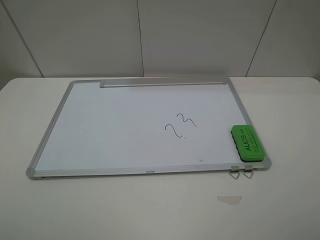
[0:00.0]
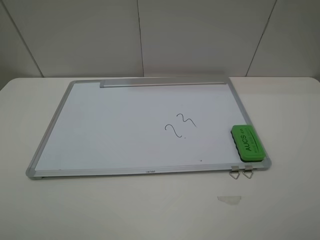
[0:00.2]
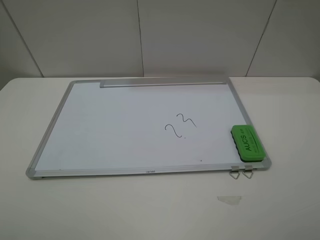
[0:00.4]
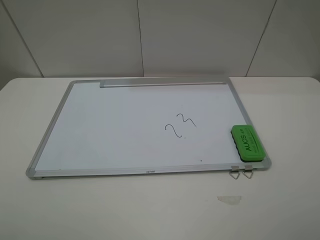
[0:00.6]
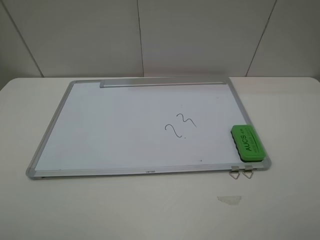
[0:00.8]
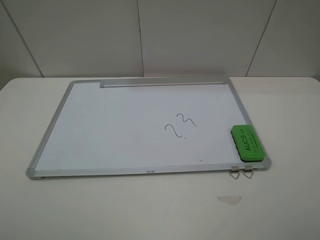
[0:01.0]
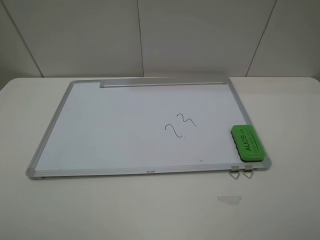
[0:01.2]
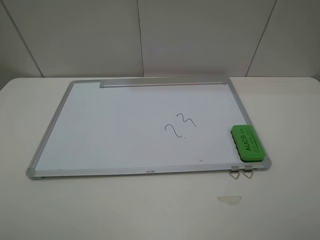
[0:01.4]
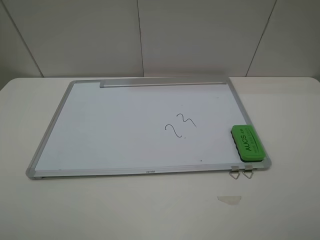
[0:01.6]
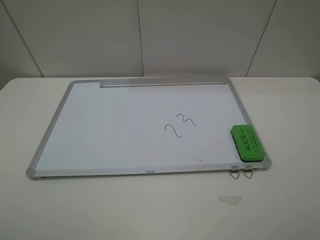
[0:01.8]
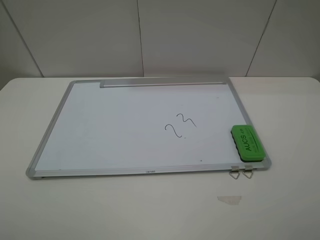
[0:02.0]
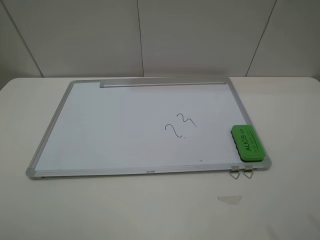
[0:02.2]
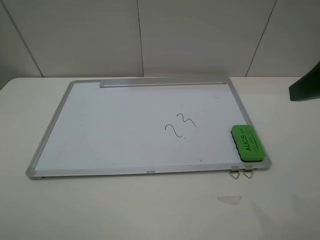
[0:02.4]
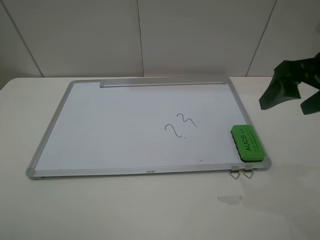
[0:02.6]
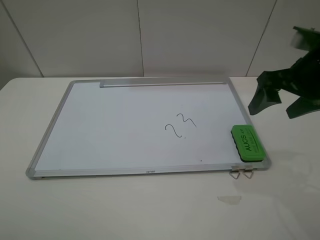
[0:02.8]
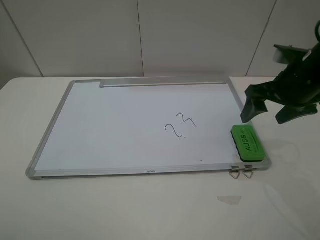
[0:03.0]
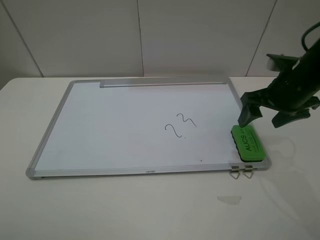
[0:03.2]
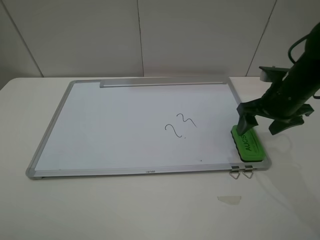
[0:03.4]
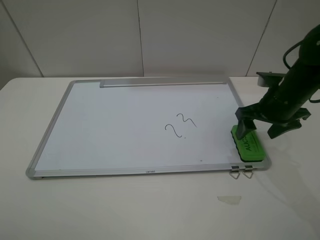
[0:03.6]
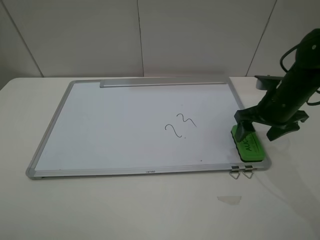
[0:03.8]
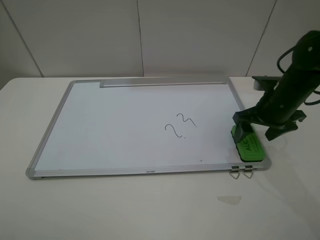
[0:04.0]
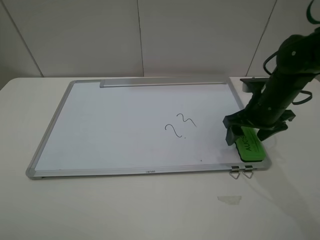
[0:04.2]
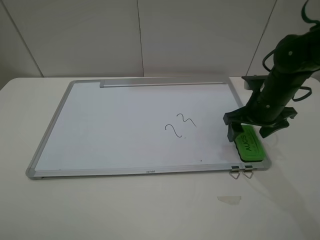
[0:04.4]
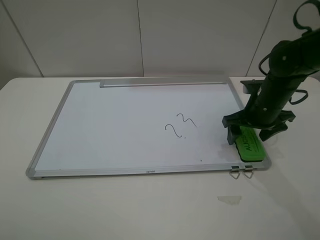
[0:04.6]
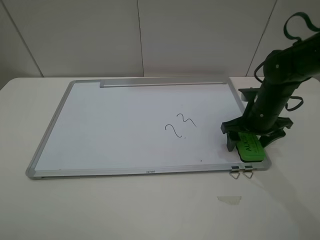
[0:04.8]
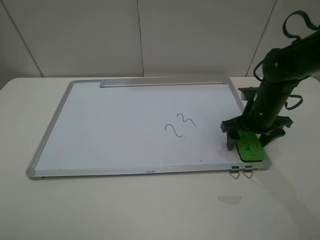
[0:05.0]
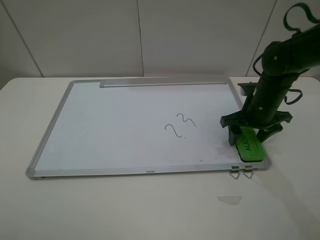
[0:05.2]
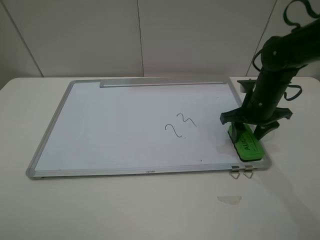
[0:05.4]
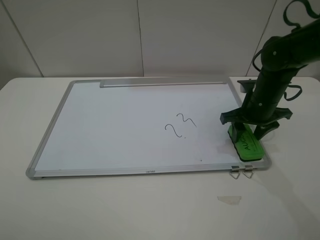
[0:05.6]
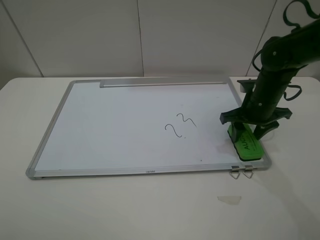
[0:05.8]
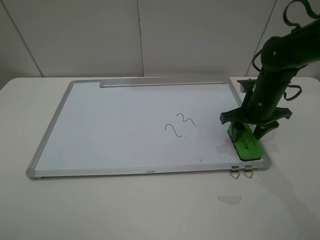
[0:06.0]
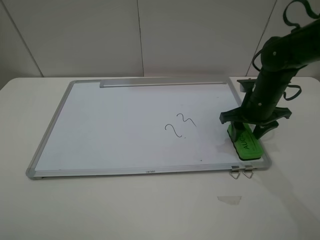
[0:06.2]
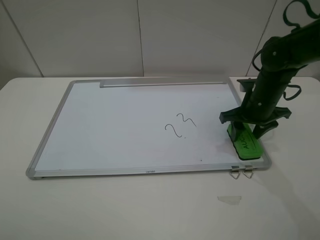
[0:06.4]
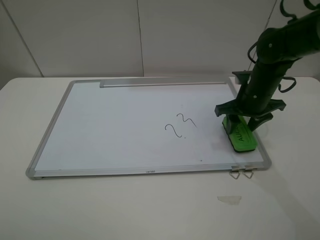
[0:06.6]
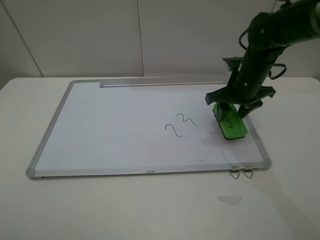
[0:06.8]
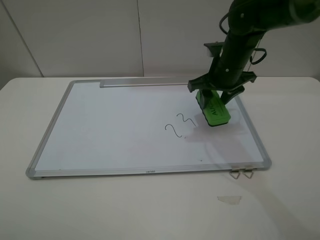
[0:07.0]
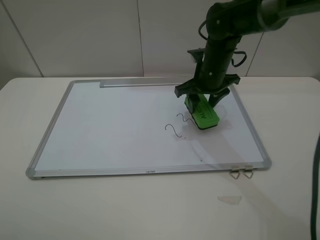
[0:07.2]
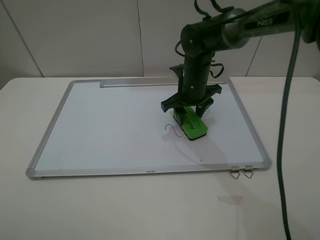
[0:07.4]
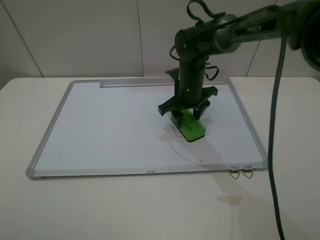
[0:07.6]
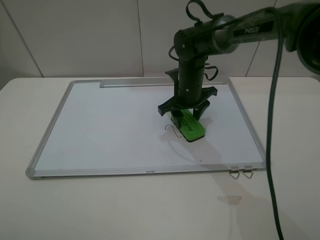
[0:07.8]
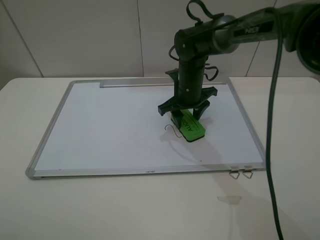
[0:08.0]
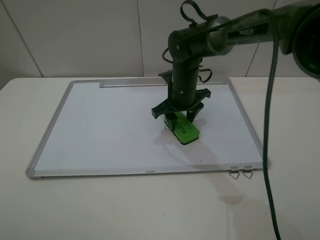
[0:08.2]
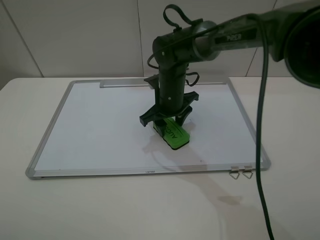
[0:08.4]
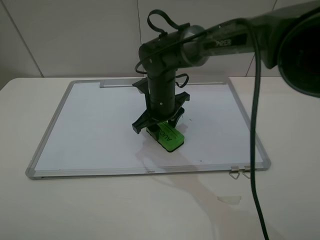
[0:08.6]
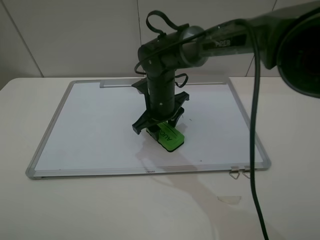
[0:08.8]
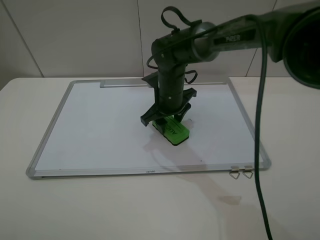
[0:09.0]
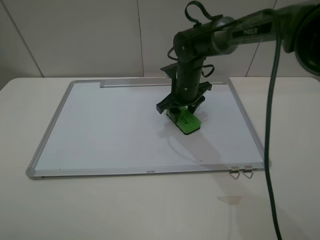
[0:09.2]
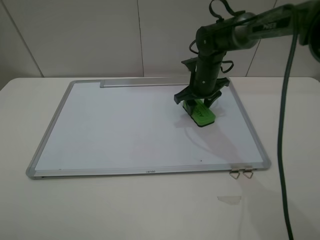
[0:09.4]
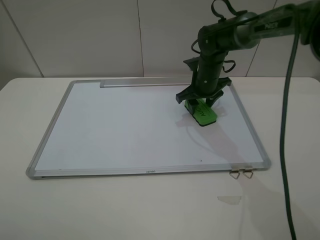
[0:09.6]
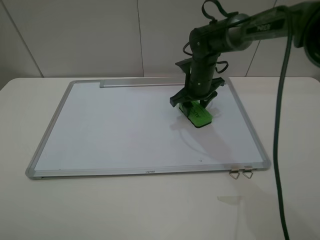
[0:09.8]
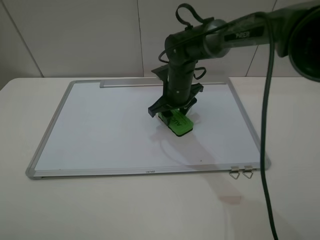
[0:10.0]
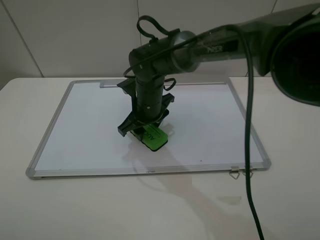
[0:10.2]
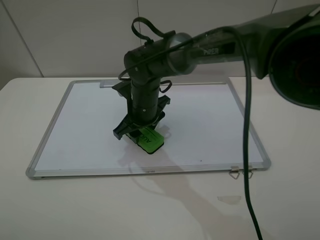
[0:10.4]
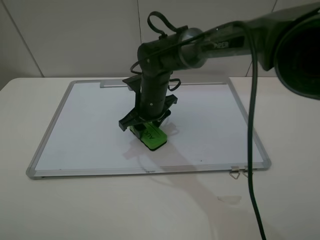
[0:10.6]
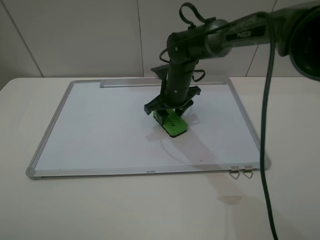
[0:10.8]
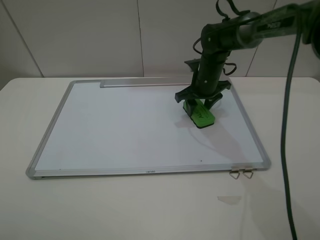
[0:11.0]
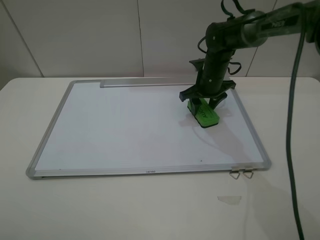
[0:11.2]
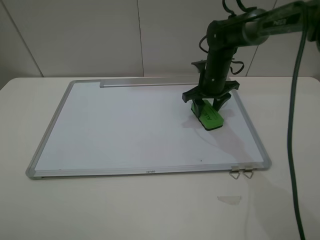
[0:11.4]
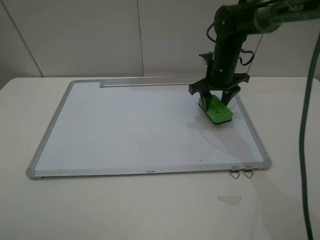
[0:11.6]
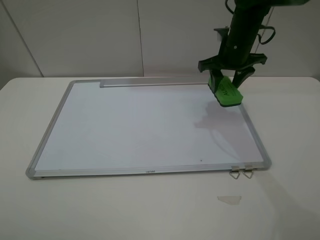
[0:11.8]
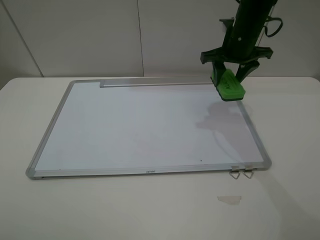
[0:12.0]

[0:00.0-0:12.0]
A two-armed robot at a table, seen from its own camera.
Step, 0:00.0 to 0:05.2: Grasp the eraser with the right gripper.
Step, 0:05.4 to 0:11.2: Grasp the eraser and wipe the blackboard with the right gripper.
0:00.0 to 0:01.6: Neither gripper changes place.
0:01.6 to 0:03.0: The right gripper is displaced forward by roughly 30 cm.
0:03.0 to 0:04.4: The right gripper moves downward, approximately 10 cm.
0:04.4 to 0:06.0: The right gripper closes.
0:06.0 to 0:07.6: The right gripper moves to the left and forward, approximately 15 cm.
0:09.0 to 0:10.4: The right gripper travels to the left by about 5 cm.
0:10.4 to 0:12.0: The right gripper travels to the right and upward by about 25 cm.

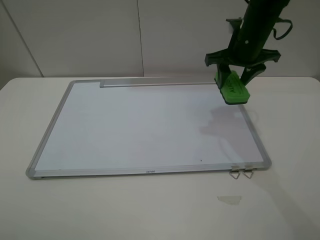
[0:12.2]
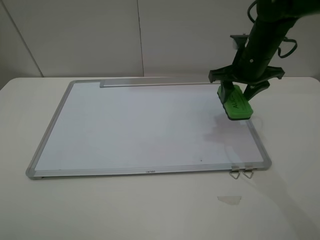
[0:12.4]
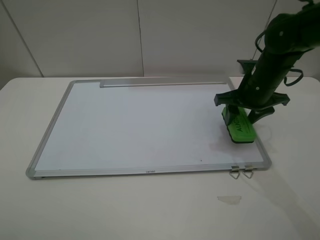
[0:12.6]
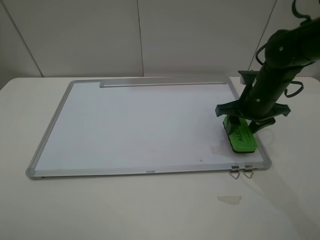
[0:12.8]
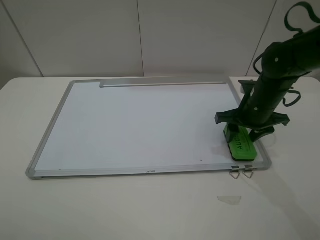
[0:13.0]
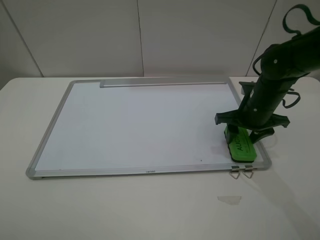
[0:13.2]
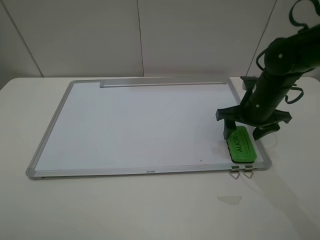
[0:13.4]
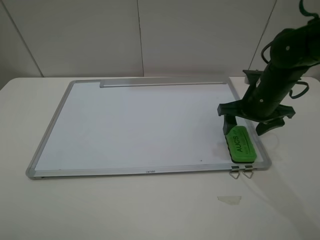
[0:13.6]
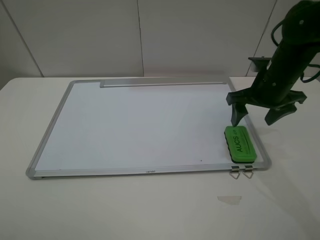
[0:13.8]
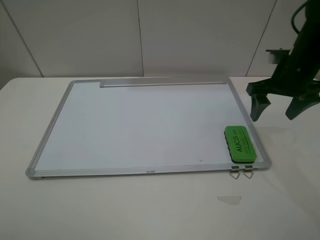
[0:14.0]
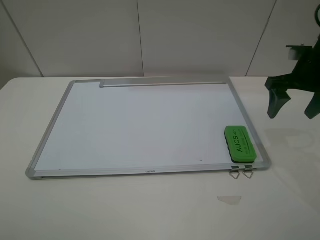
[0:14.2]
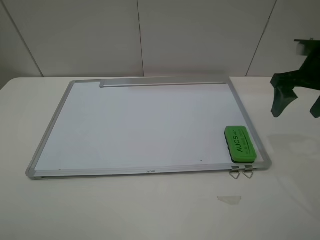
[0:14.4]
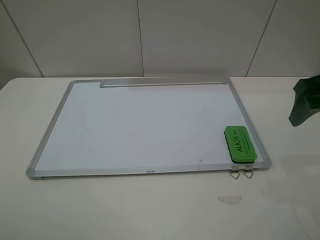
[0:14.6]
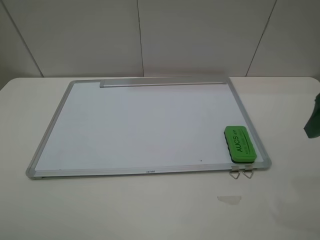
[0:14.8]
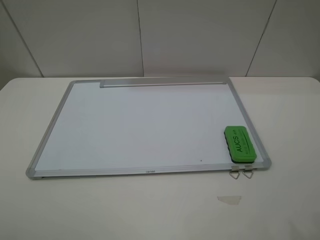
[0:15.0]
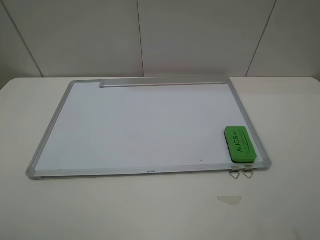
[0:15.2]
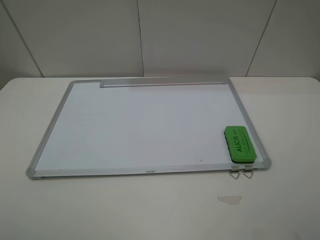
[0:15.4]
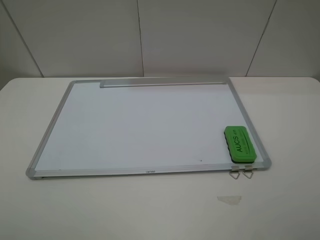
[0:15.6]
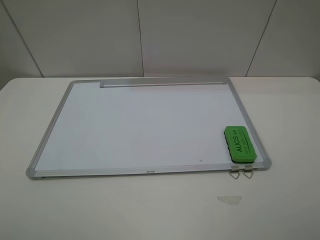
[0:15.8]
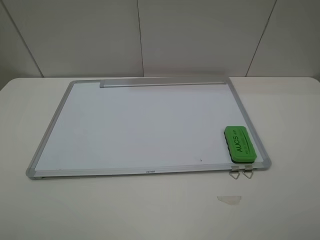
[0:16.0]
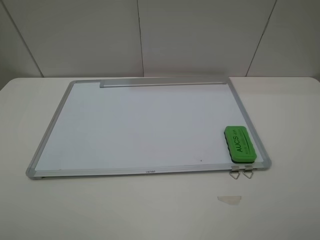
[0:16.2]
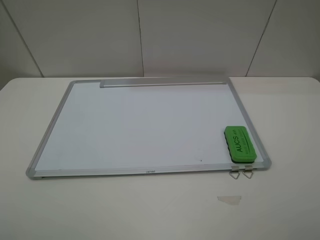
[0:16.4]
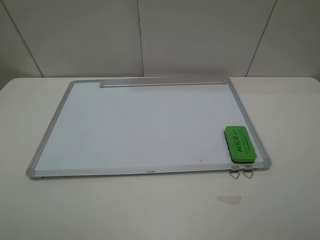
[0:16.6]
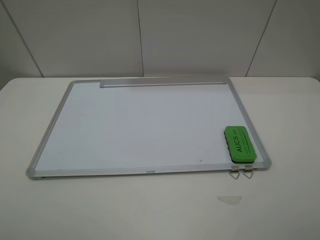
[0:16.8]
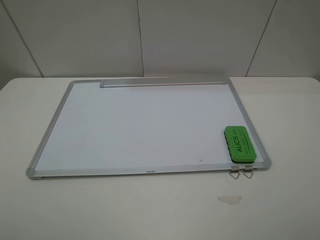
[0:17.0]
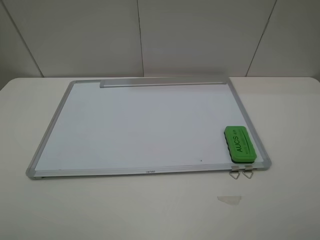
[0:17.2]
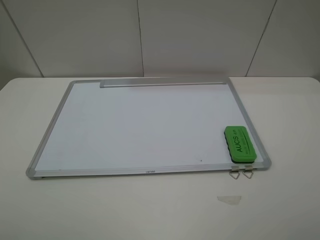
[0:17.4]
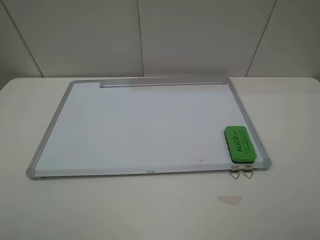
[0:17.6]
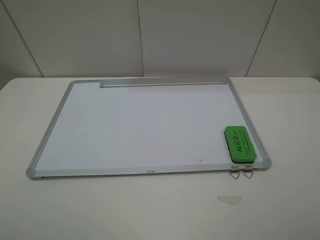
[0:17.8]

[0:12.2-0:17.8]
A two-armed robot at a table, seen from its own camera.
Step, 0:12.2 to 0:13.4: Place the eraser with the right gripper.
0:12.2 to 0:13.6: The right gripper goes some 10 cm backward and downward, and opens its fingers.
0:13.6 to 0:15.0: The right gripper travels backward and upward by roughly 25 cm.
0:16.4 to 0:17.8: Neither gripper changes place.

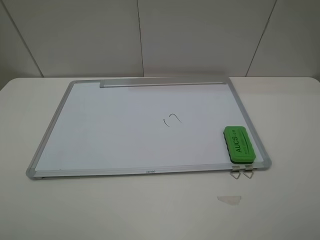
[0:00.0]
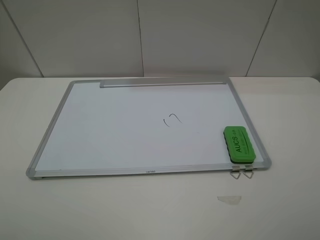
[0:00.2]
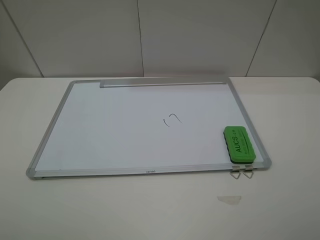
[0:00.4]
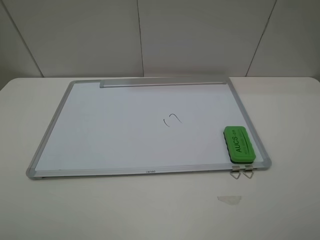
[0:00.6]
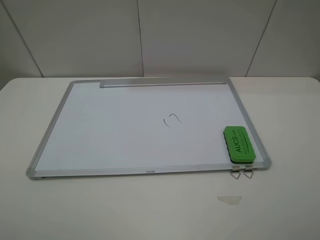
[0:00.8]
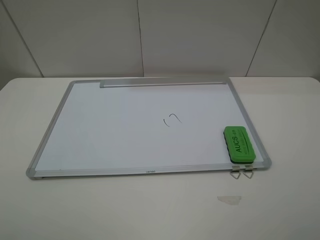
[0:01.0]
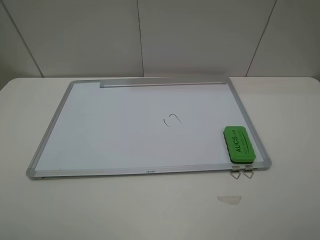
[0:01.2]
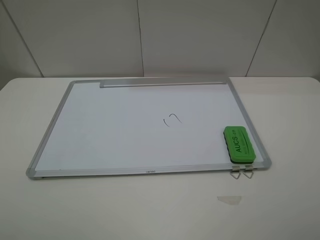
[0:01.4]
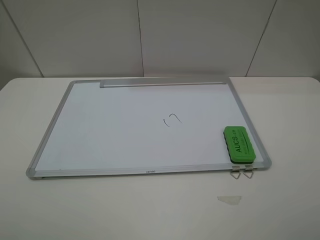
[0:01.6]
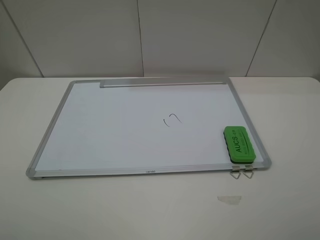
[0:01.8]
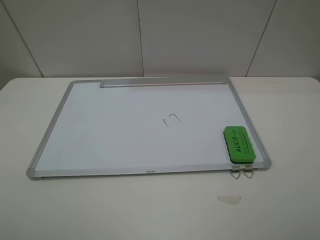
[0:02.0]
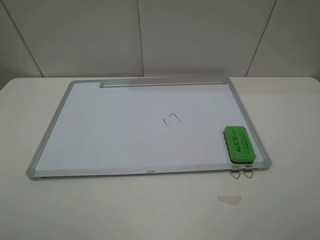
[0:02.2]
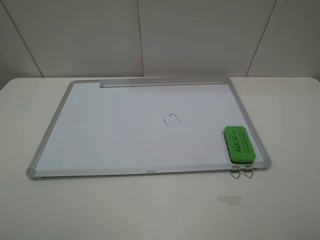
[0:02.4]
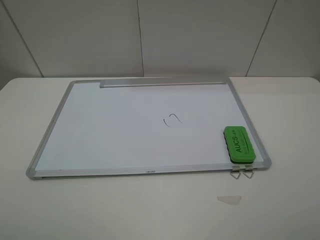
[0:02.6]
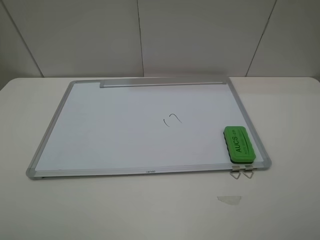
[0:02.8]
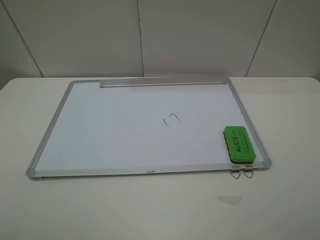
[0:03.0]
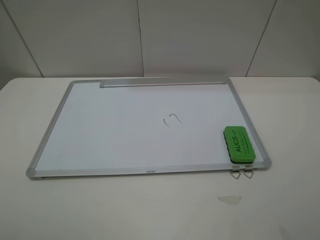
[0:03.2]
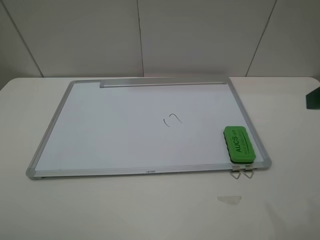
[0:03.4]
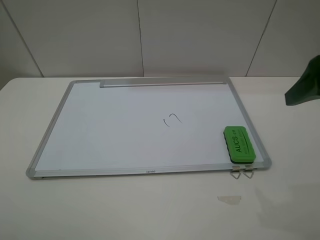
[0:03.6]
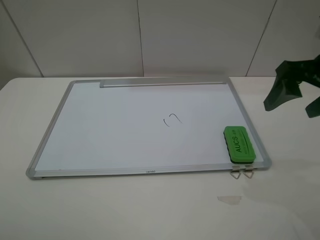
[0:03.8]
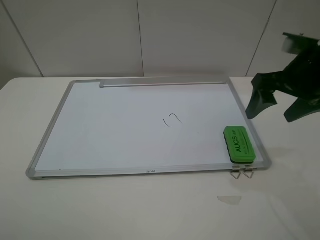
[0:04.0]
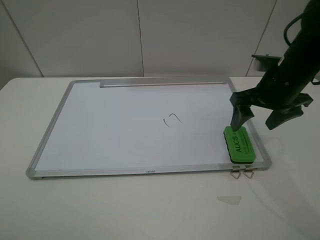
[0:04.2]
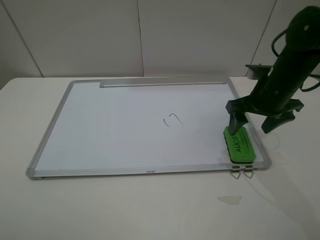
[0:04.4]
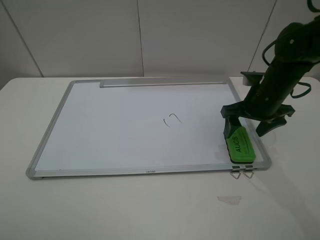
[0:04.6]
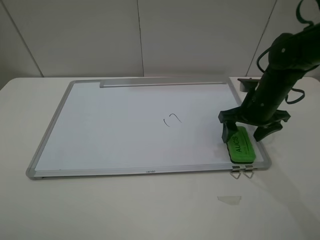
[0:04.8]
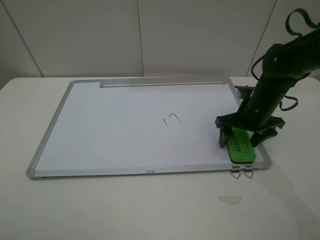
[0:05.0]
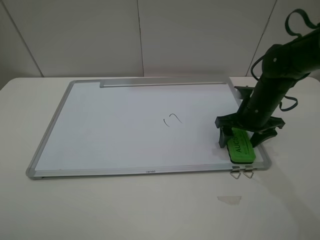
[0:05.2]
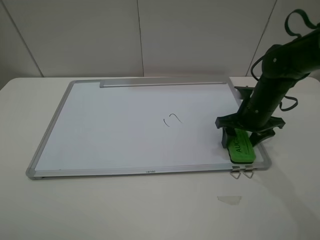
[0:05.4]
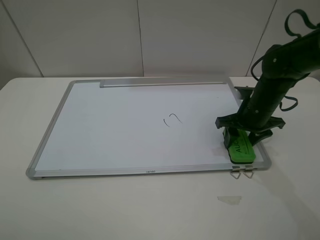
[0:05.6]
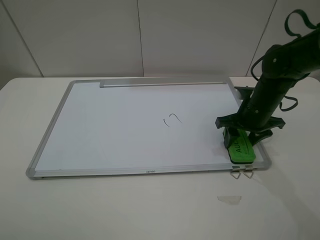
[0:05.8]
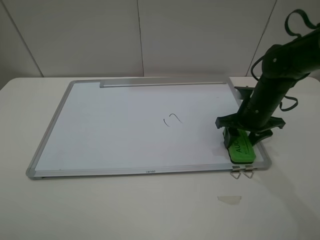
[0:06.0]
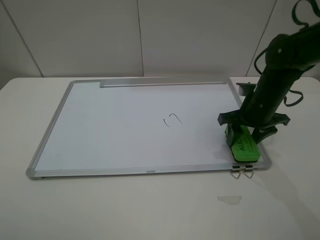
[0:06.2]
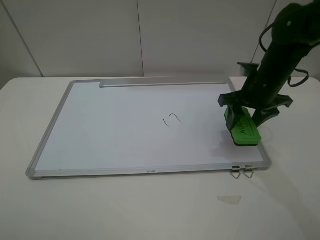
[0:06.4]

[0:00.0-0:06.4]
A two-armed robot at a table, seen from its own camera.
Step, 0:00.0 to 0:05.4: Grasp the eraser with the right gripper.
0:00.0 to 0:01.6: Neither gripper changes place.
0:03.2 to 0:04.8: The right gripper shifts some 30 cm forward and downward.
0:04.8 to 0:06.4: The right gripper travels upward by approximately 5 cm, and closes its fingers.
